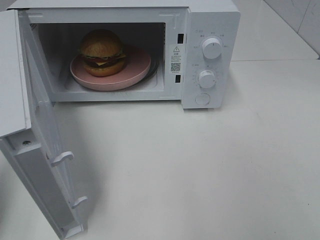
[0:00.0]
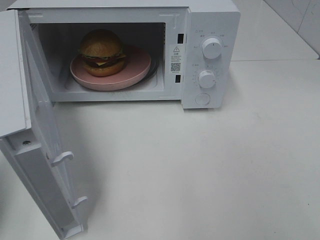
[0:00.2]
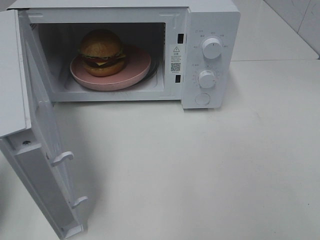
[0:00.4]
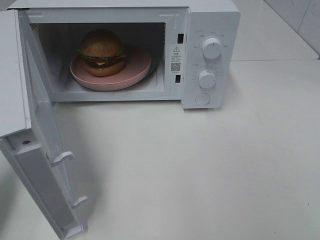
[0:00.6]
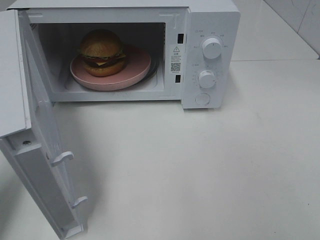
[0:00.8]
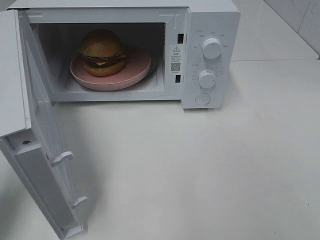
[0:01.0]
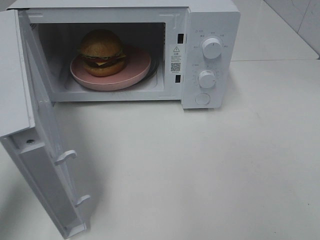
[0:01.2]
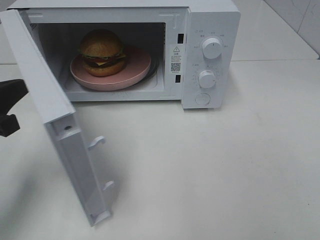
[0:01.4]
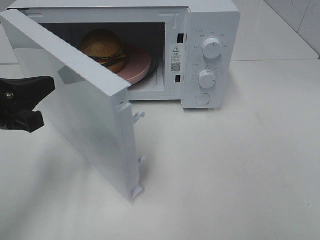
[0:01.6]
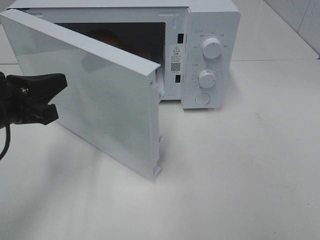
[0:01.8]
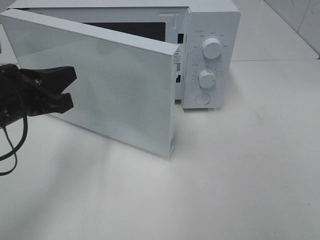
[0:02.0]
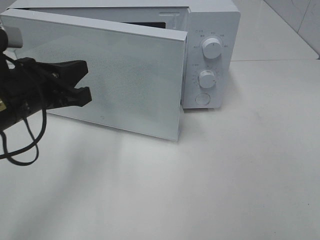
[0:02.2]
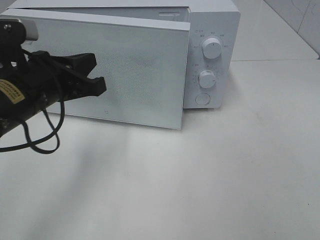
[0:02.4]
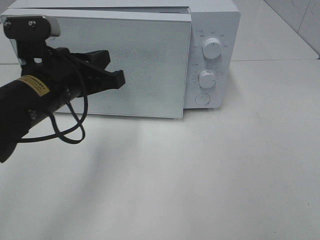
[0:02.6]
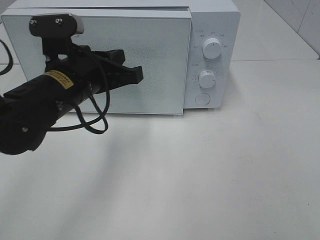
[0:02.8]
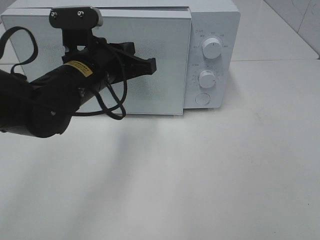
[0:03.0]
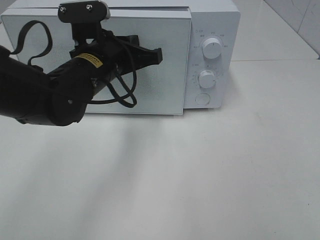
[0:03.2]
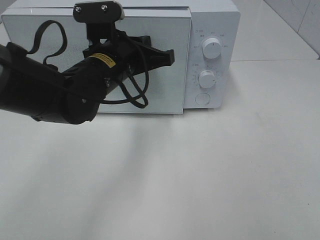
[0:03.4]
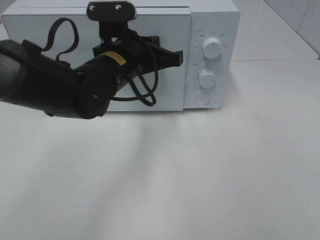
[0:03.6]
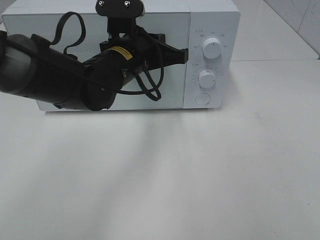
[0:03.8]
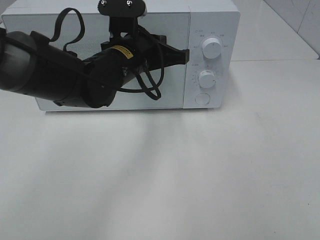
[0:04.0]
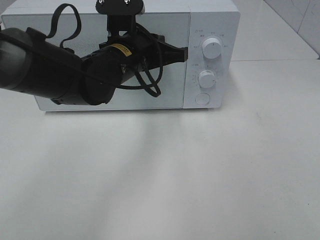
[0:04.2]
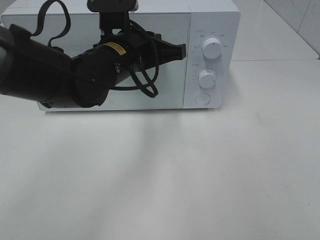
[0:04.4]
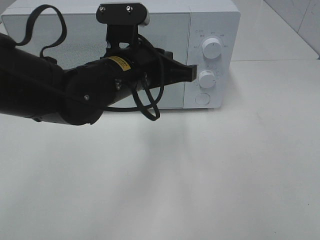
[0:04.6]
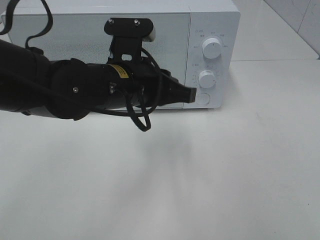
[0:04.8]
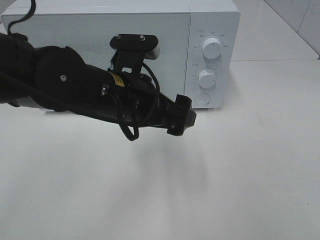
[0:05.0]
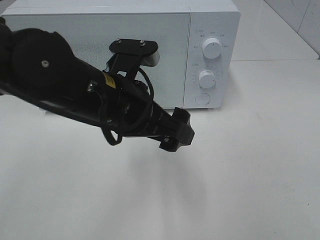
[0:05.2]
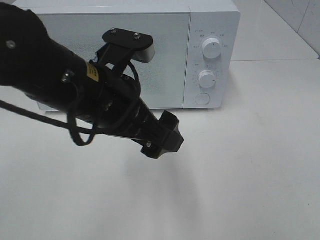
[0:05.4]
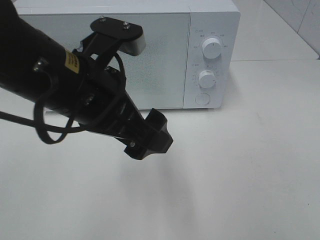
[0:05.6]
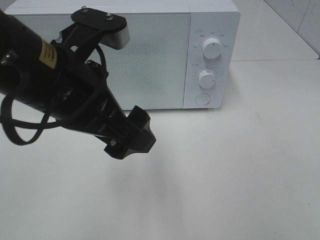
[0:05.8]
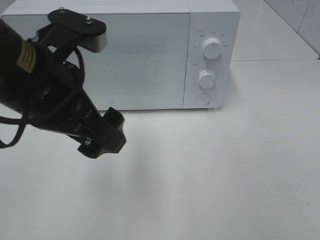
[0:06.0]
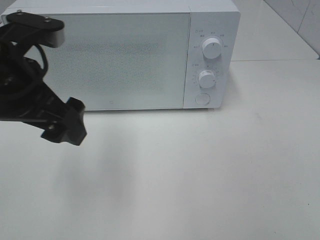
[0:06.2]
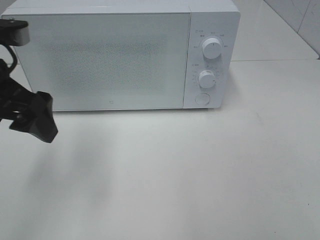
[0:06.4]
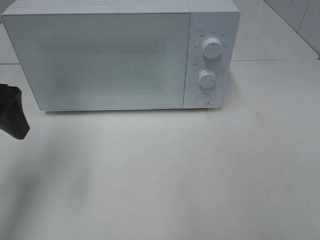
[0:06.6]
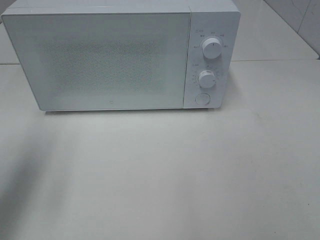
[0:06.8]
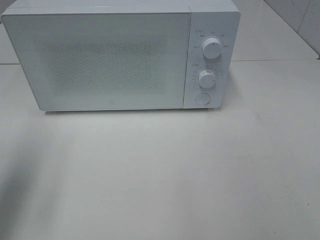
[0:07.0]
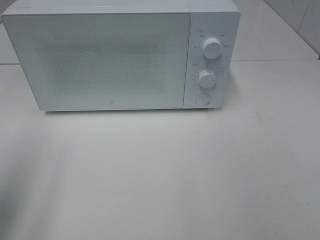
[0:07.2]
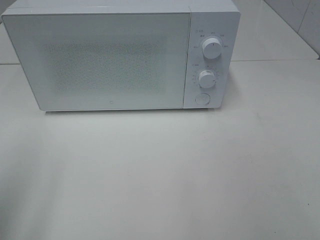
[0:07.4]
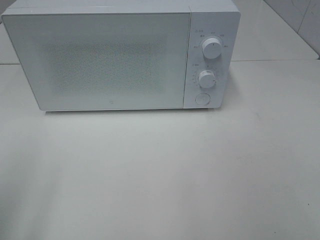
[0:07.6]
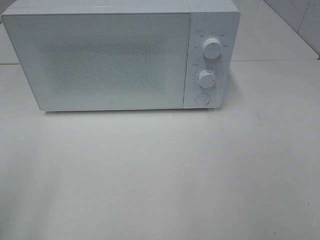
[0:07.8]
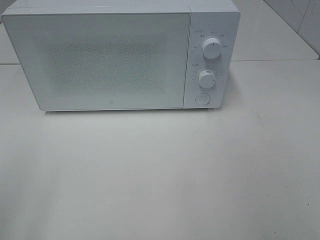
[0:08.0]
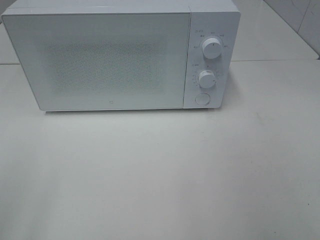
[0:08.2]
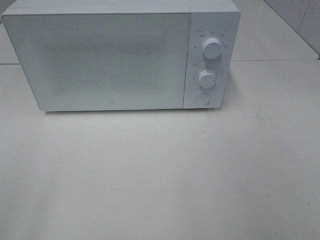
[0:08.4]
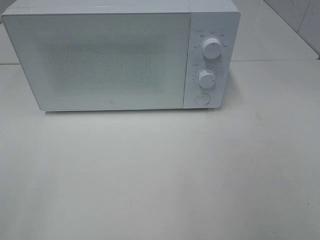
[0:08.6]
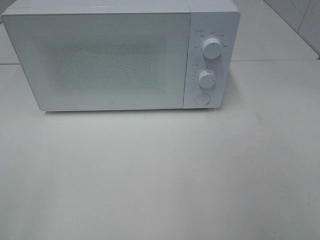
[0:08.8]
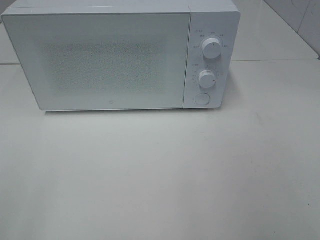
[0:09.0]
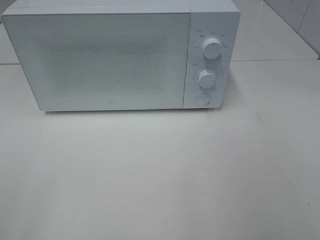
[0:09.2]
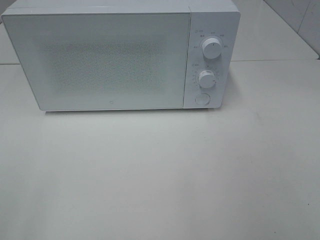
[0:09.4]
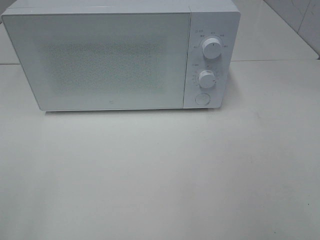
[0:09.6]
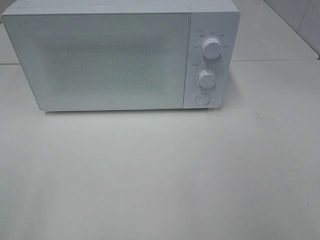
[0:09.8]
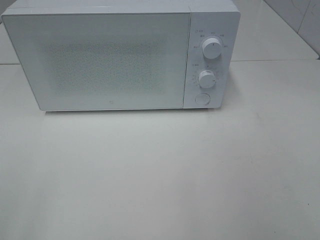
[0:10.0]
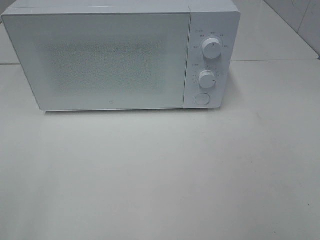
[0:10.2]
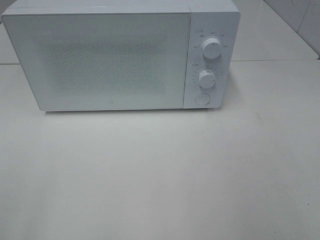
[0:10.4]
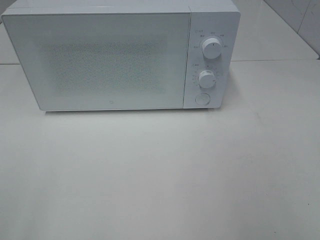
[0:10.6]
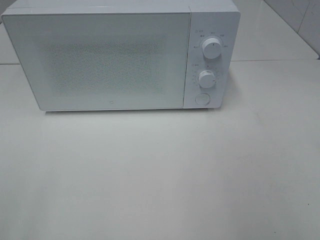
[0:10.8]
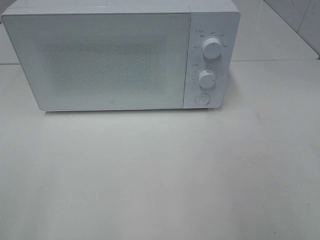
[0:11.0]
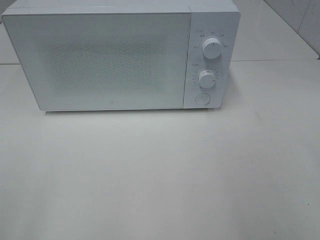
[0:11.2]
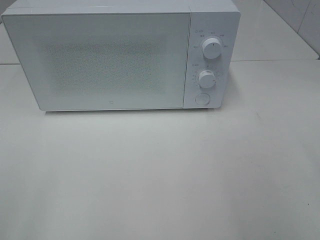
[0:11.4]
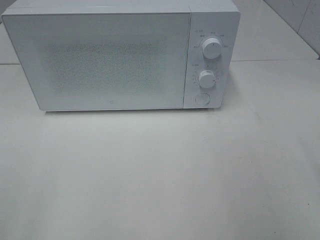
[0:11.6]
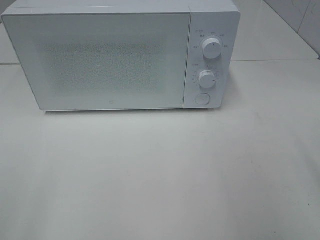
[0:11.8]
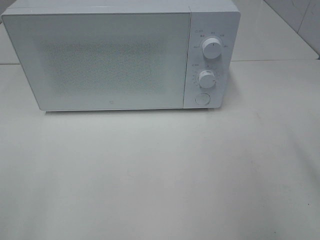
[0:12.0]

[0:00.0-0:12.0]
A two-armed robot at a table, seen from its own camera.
Task of the whole recording: Heat the burger.
Step, 0:00.0 to 0:04.4: Left hand: close the microwave door.
0:00.0 to 0:01.6: The left gripper travels to the right, forward and downward by about 15 cm.
0:01.6 to 0:03.0: The left gripper heads to the right and forward, covering approximately 15 cm.
0:03.0 to 0:04.4: The left gripper ends up roughly 5 cm from where it was.
0:04.4 to 0:06.0: The left gripper travels backward, to the left and upward by roughly 15 cm, and opens up.
0:06.0 to 0:07.6: The left gripper moves to the left and backward, about 20 cm.

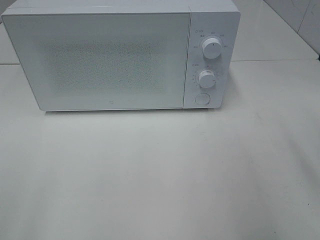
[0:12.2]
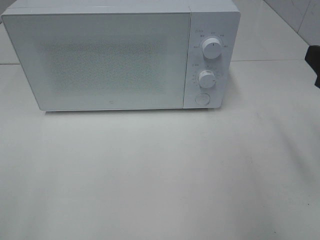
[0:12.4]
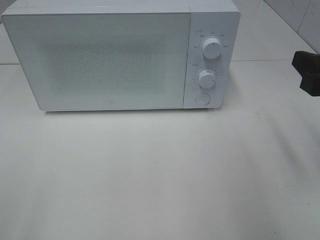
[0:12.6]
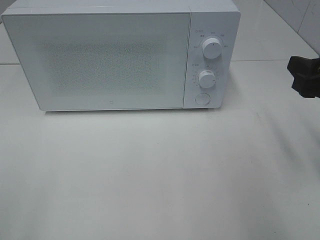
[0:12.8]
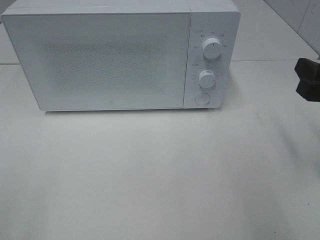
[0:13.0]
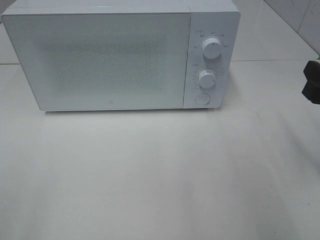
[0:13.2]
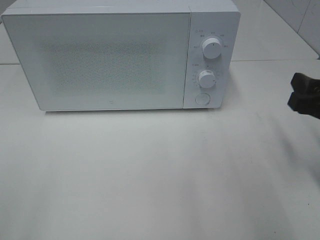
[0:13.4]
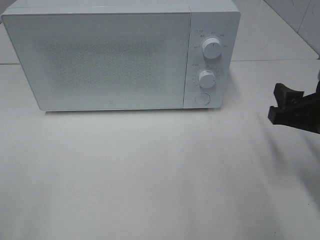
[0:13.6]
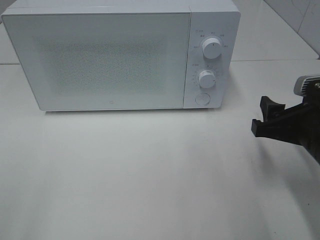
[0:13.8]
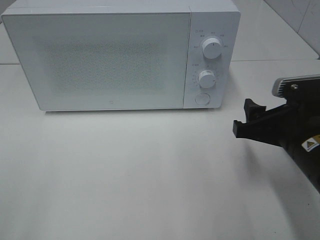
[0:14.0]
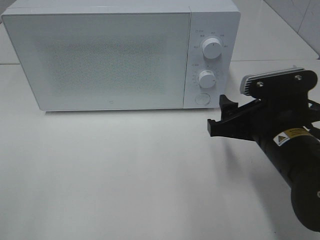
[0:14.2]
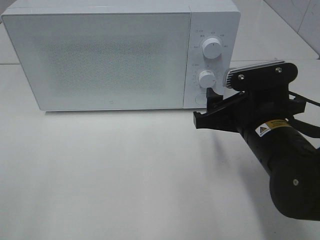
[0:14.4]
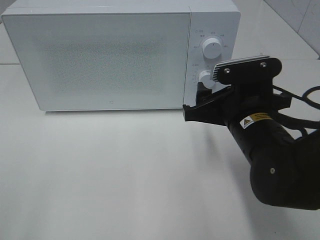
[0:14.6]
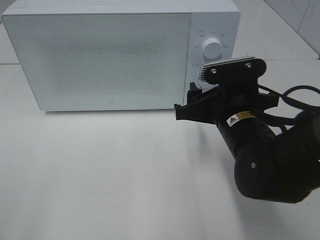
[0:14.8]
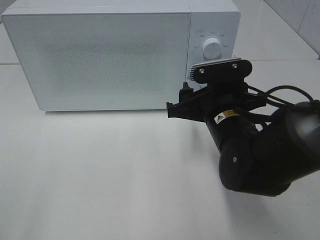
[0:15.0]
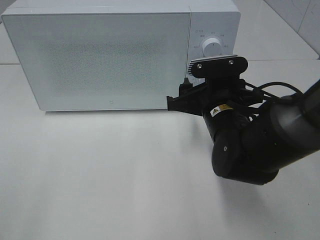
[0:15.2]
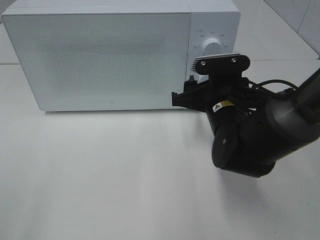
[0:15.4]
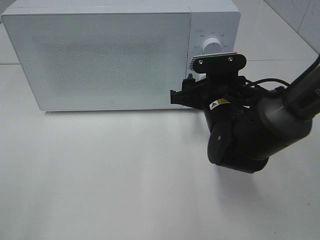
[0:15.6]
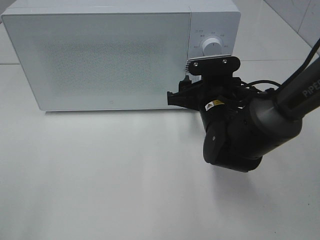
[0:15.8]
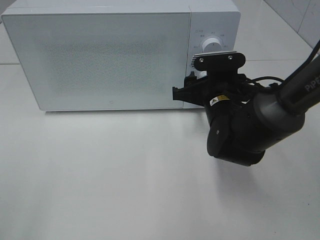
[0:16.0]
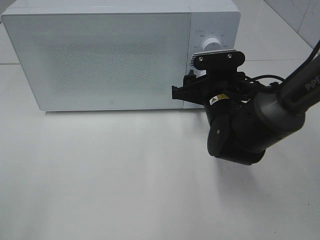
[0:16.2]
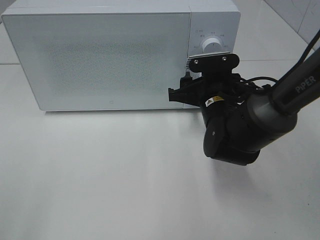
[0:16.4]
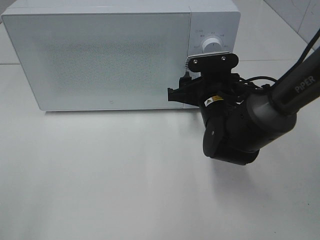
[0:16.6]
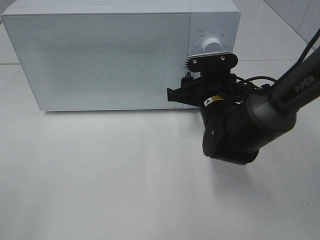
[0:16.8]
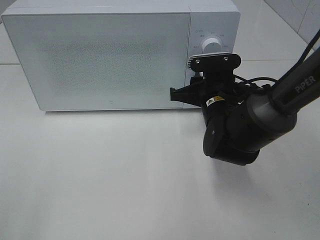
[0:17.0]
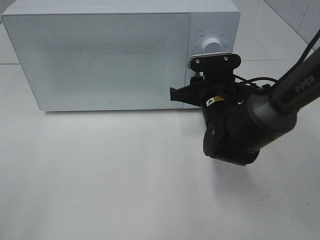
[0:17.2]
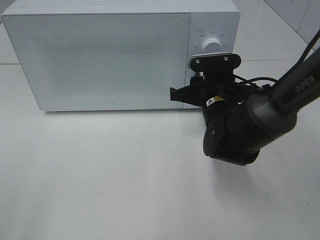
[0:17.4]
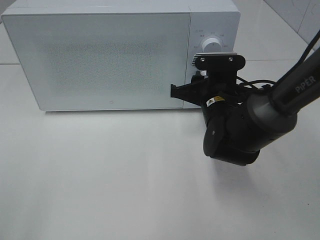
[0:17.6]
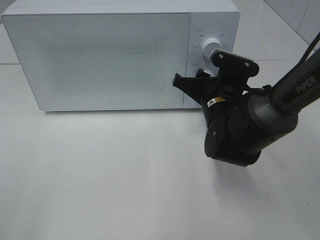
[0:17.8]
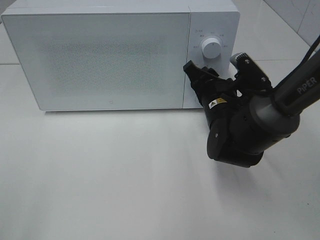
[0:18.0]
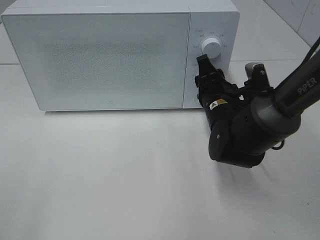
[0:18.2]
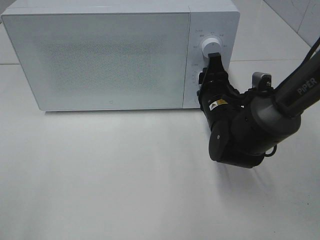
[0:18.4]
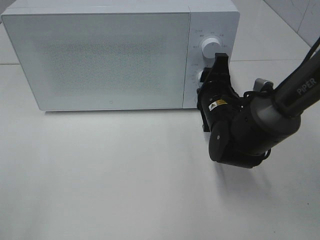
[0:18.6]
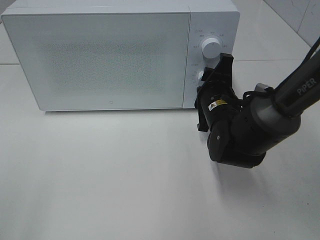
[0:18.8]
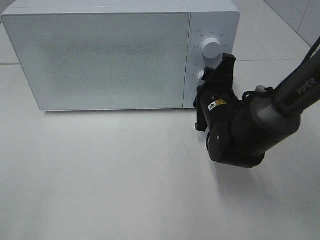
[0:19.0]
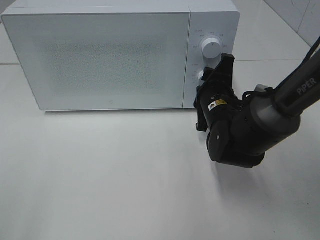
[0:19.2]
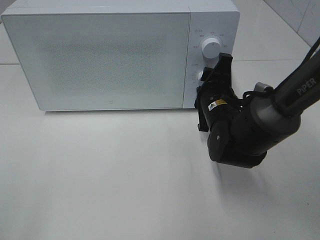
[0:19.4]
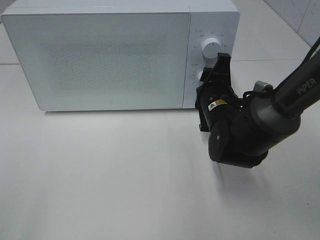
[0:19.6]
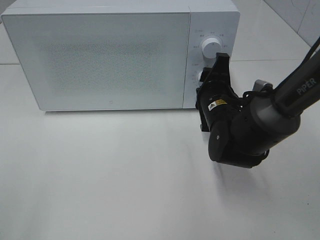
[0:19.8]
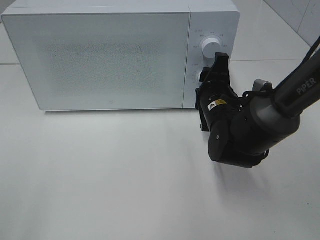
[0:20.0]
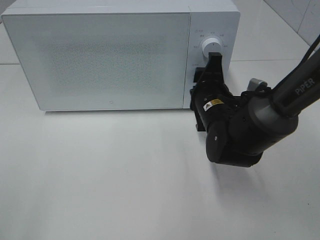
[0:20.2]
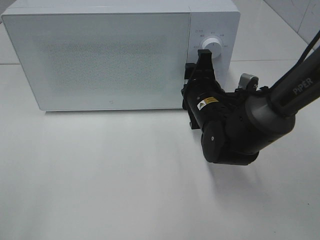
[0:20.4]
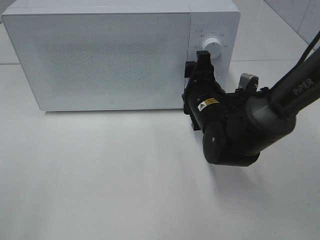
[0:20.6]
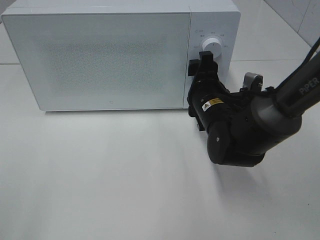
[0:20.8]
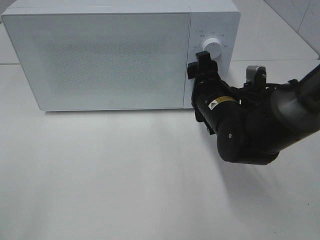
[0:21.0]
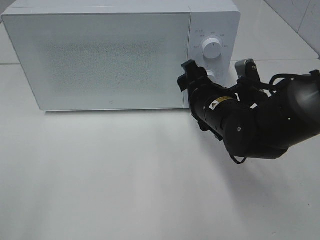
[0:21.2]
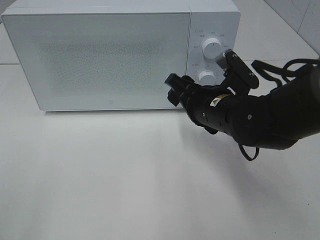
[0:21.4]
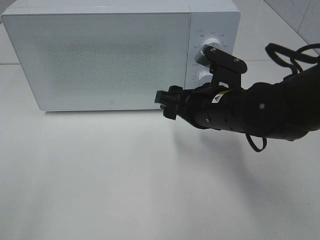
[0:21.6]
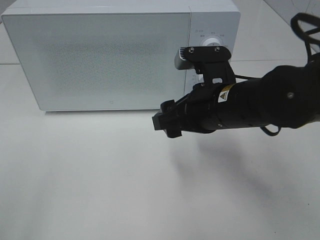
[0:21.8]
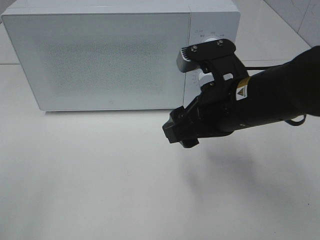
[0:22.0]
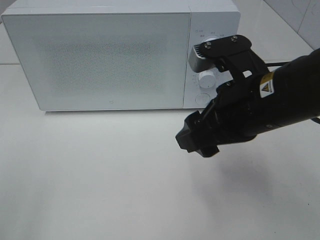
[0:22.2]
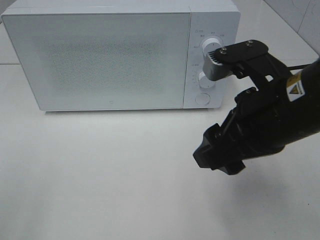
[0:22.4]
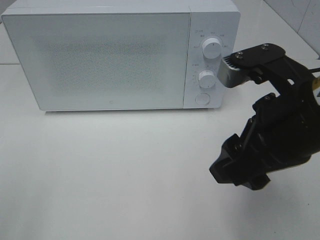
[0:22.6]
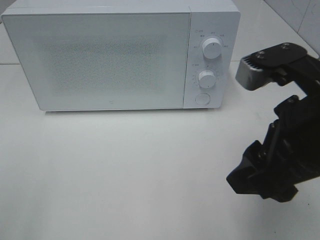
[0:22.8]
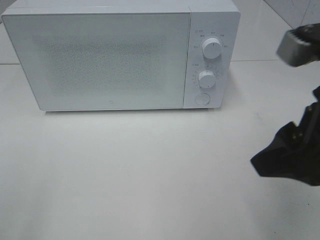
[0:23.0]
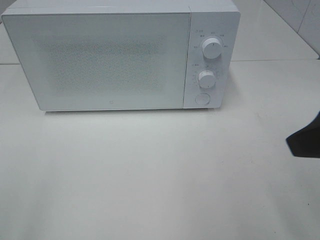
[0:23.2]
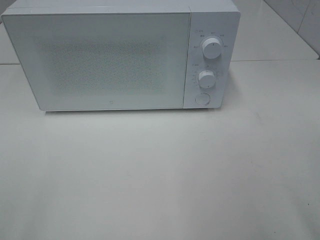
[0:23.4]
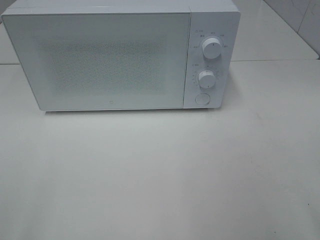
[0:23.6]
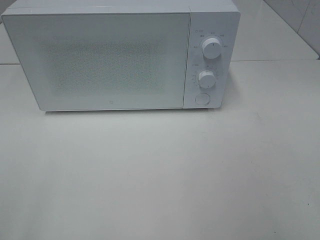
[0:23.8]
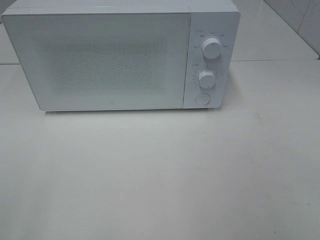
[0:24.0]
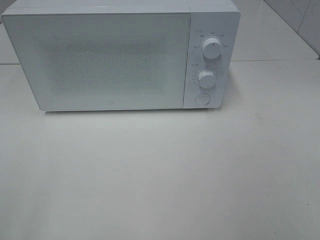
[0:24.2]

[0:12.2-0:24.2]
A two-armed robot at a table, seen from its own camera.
Task of the whole recording: Heat the burger.
Step, 0:12.2 to 0:20.2: Right hand: twist timer button.
0:12.2 to 0:13.8: The right gripper shifts approximately 10 cm downward.
0:13.8 to 0:15.2: The right gripper heads to the left and forward, covering approximately 15 cm.
0:15.2 to 0:16.6: The grippers move only a little.
0:21.2 to 0:22.6: The right gripper goes some 15 cm backward and upward.
0:22.6 to 0:24.2: The right gripper goes roughly 20 cm backward and to the right.
